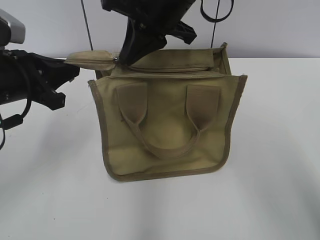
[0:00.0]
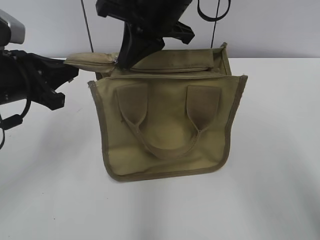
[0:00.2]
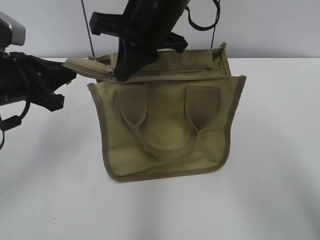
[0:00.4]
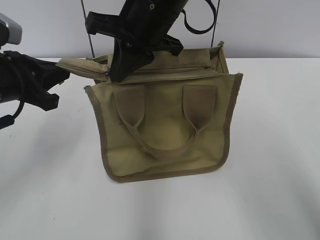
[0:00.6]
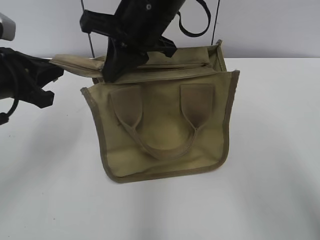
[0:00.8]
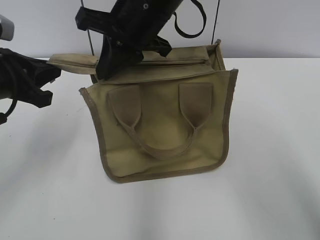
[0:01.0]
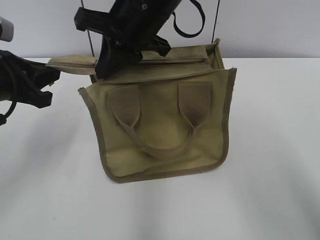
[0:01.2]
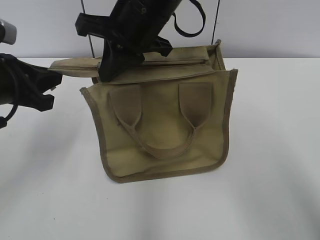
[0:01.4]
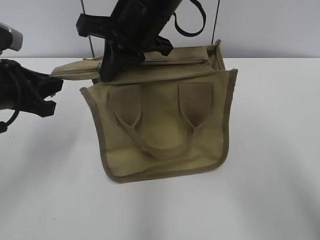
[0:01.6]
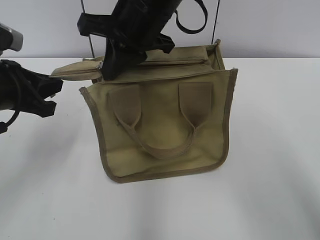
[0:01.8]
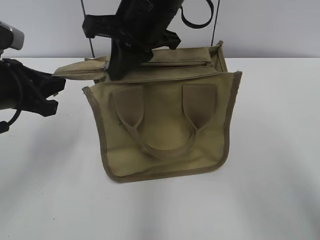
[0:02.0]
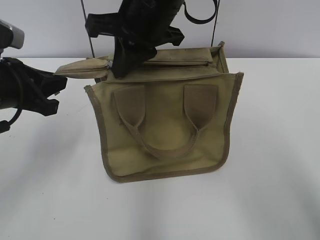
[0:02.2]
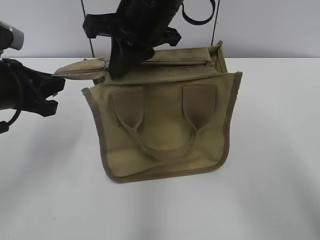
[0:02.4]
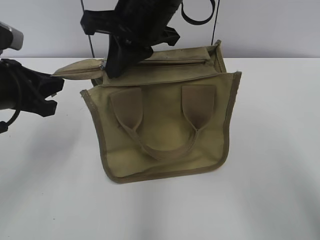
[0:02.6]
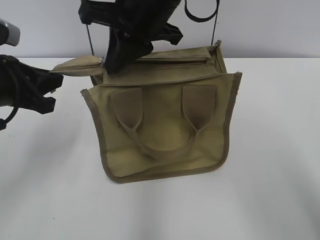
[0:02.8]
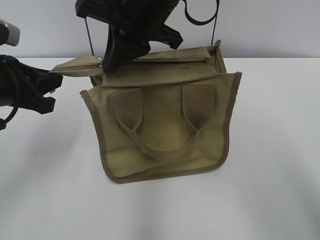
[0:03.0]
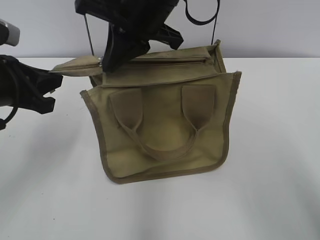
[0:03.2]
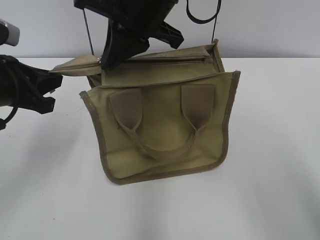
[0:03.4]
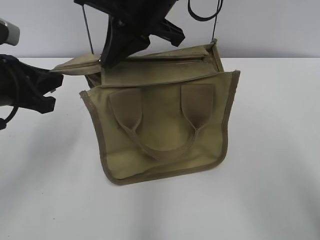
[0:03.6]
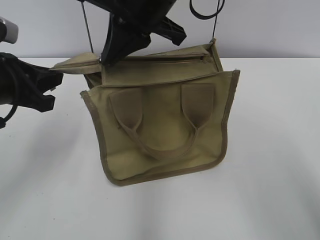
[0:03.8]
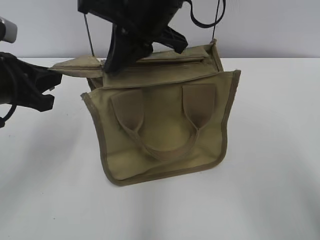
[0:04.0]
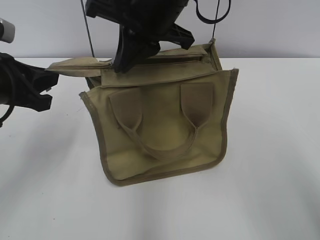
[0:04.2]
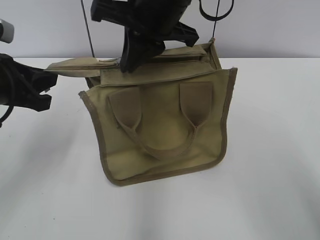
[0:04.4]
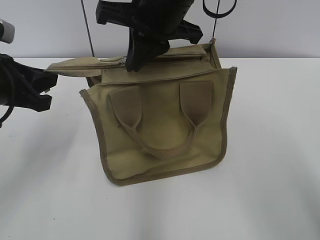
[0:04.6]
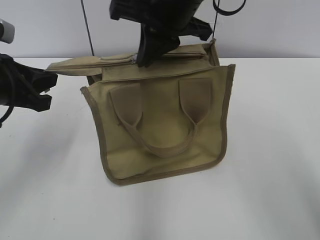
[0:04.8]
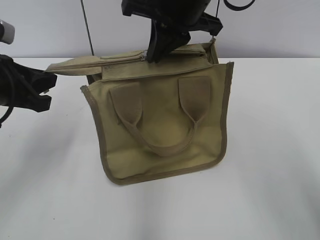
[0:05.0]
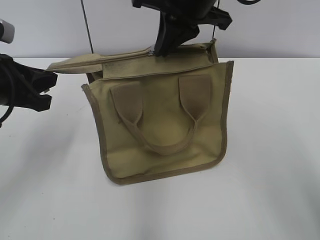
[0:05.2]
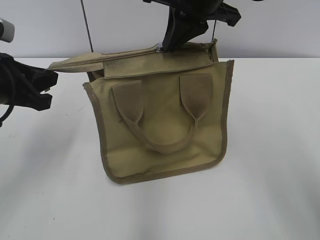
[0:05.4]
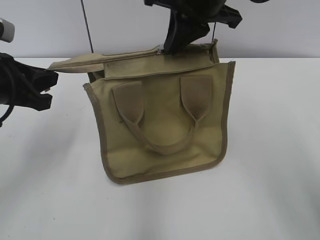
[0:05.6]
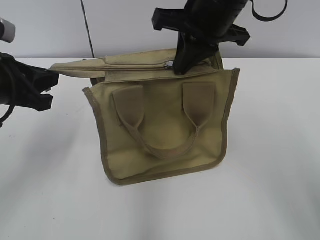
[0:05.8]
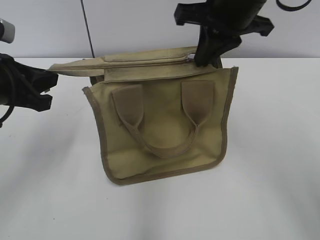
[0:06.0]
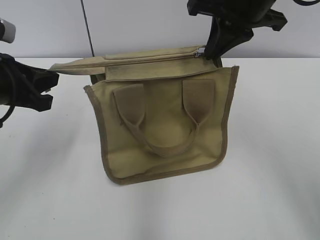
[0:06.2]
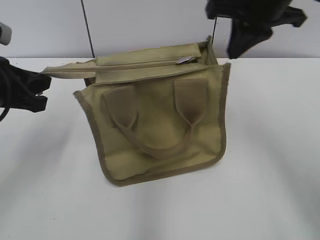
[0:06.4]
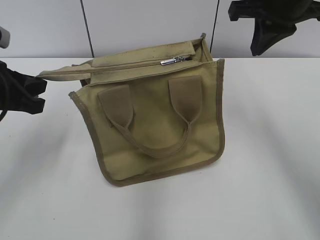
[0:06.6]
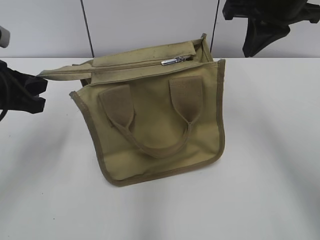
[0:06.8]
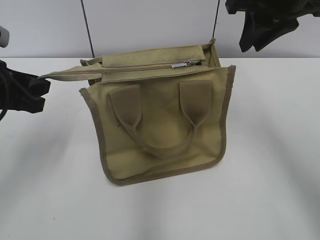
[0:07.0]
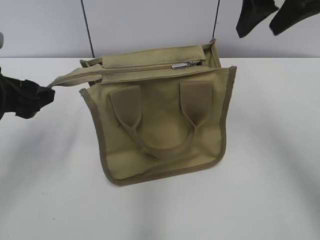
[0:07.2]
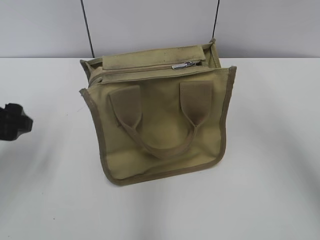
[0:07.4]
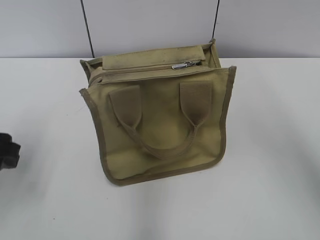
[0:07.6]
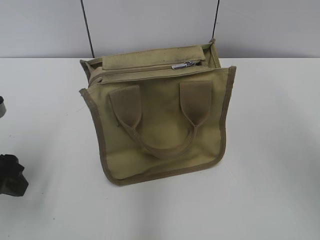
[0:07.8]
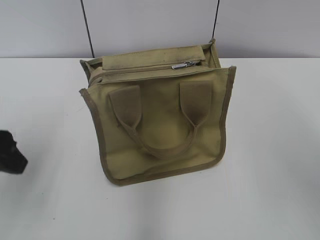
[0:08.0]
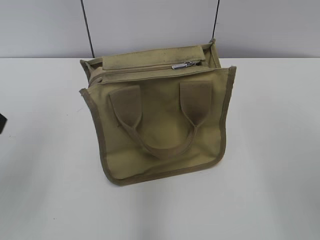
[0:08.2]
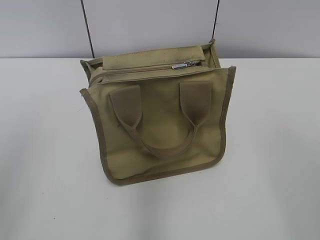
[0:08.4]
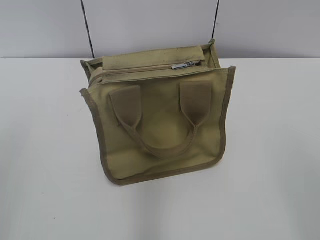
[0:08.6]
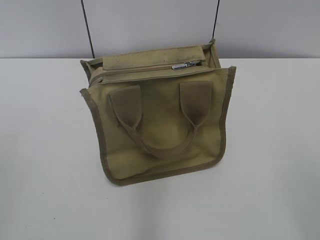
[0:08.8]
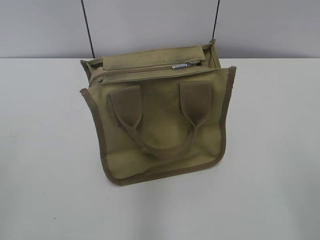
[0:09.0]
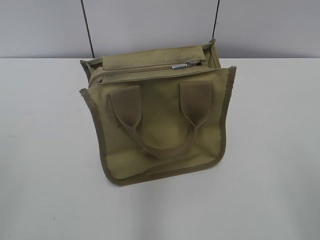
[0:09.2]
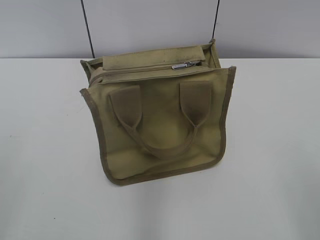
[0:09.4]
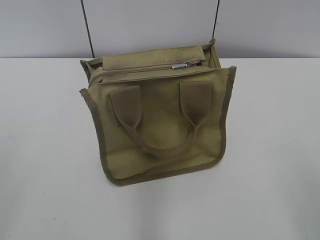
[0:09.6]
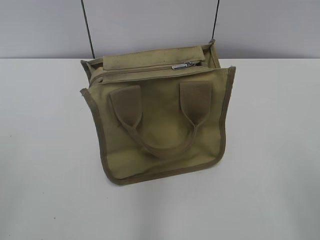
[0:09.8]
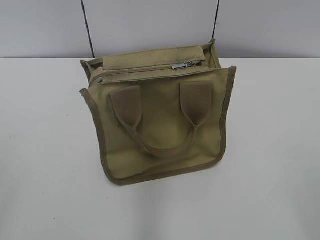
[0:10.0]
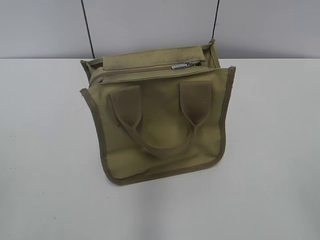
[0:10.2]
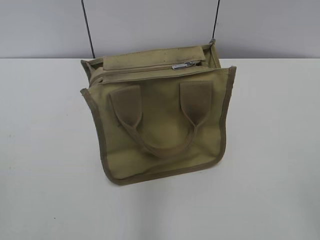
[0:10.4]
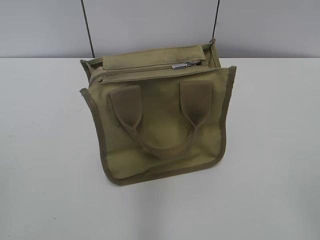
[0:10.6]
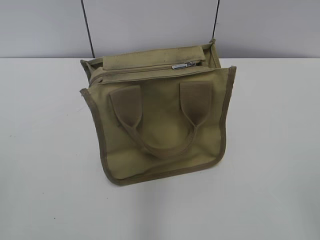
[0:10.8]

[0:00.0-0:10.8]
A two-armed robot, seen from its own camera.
Step, 0:00.0 to 0:06.2: Zip up the bag with your right hand.
Step, 0:06.4 to 0:07.2: Grab the zipper with your left hand.
0:00.0 to 0:04.6: The grippers stay close to where they were, moving slightly.
0:04.6 to 0:06.2: The right gripper is displaced to the right by about 10 cm.
0:06.2 to 0:07.8: The left gripper goes roughly 5 cm backward, and opens. Meanwhile the right gripper heads upward, backward and to the right, covering about 20 cm, and opens its fingers.
0:07.8 to 0:09.2: The left gripper moves backward and upward, roughly 20 cm.

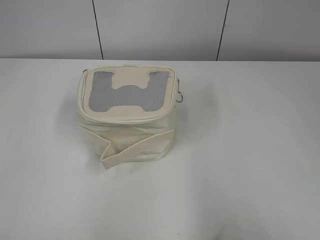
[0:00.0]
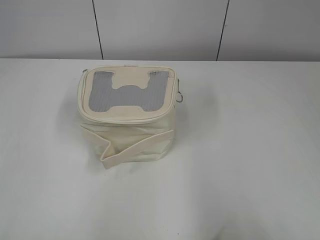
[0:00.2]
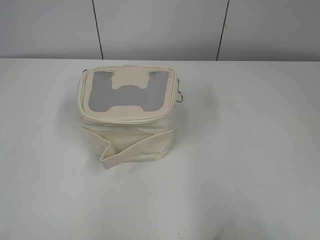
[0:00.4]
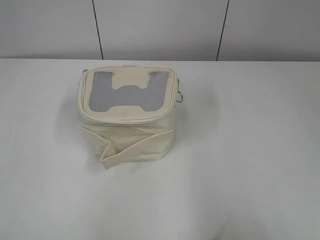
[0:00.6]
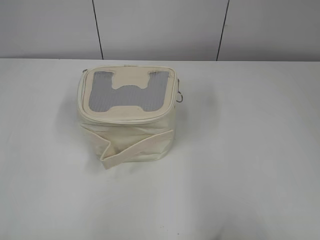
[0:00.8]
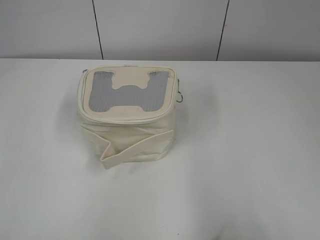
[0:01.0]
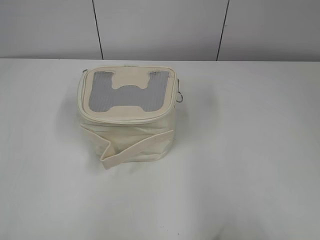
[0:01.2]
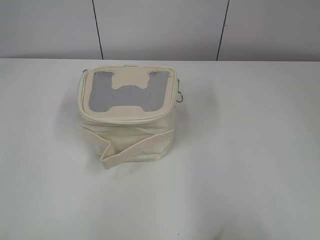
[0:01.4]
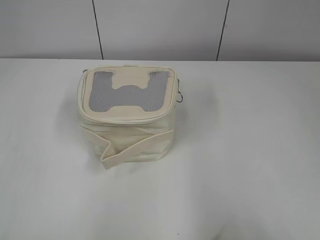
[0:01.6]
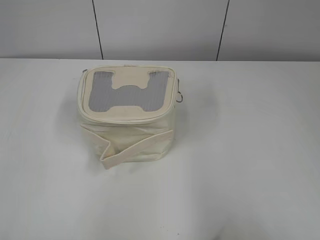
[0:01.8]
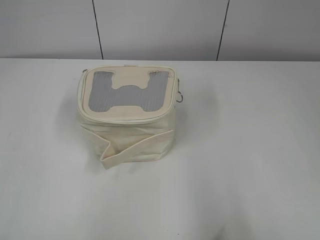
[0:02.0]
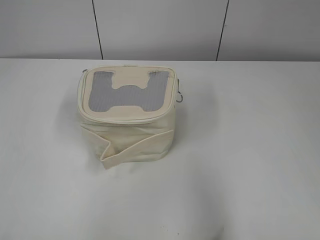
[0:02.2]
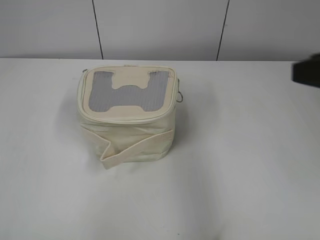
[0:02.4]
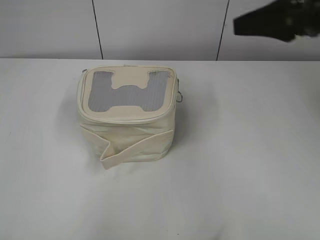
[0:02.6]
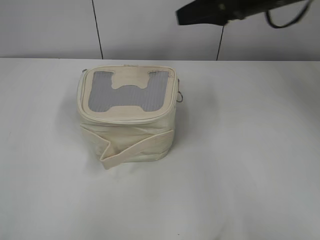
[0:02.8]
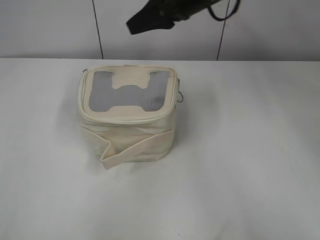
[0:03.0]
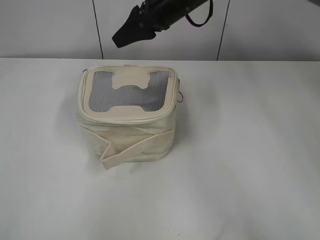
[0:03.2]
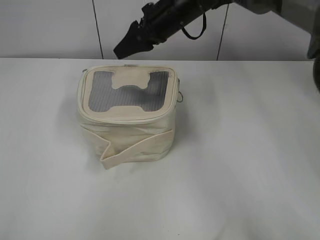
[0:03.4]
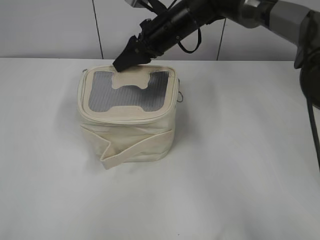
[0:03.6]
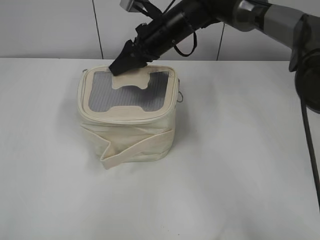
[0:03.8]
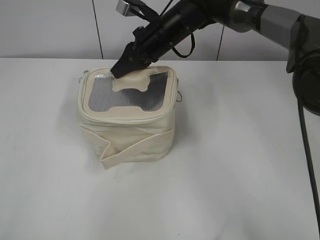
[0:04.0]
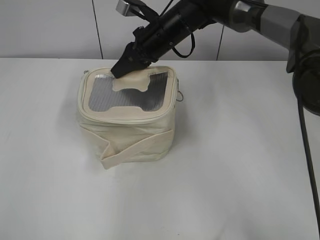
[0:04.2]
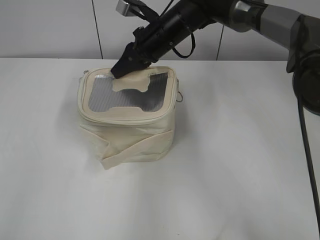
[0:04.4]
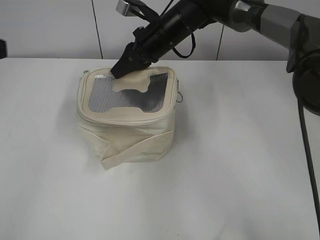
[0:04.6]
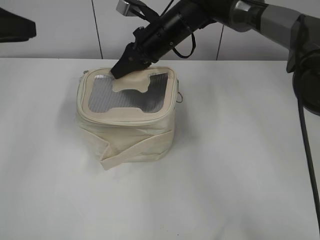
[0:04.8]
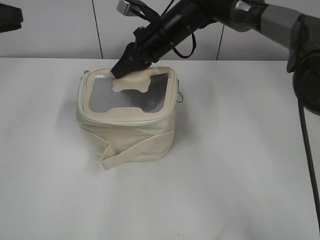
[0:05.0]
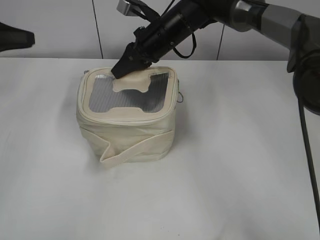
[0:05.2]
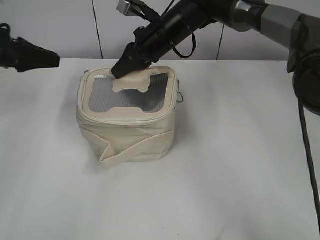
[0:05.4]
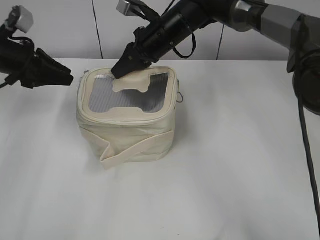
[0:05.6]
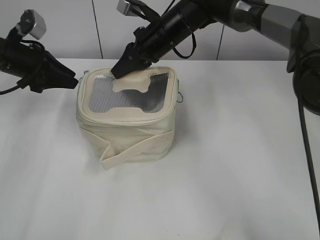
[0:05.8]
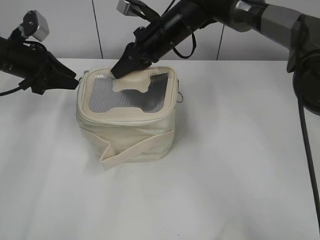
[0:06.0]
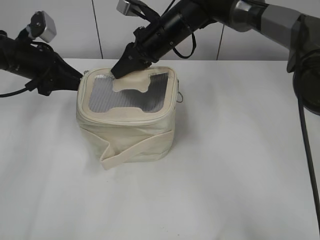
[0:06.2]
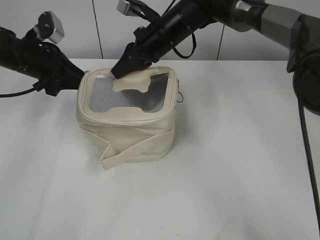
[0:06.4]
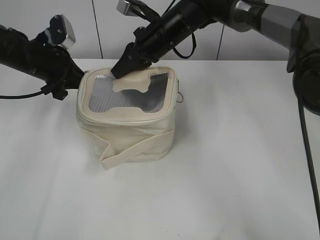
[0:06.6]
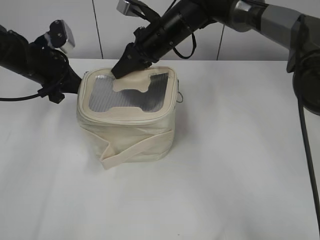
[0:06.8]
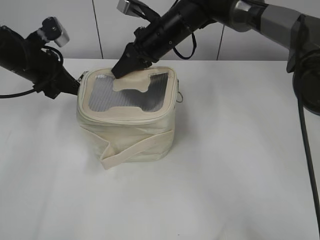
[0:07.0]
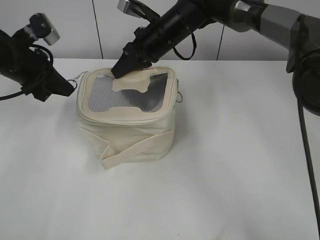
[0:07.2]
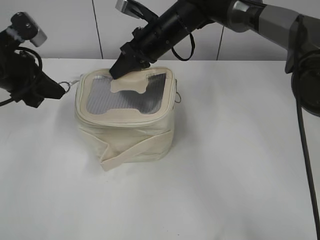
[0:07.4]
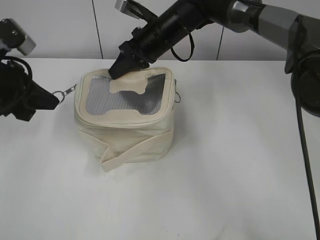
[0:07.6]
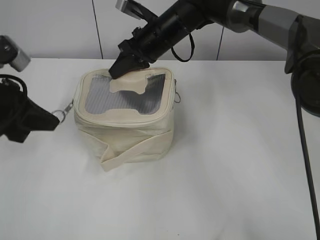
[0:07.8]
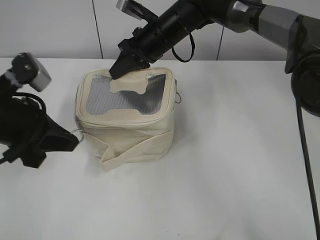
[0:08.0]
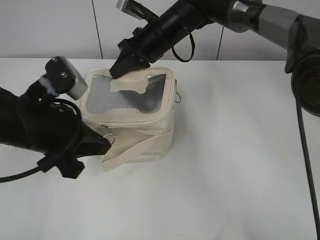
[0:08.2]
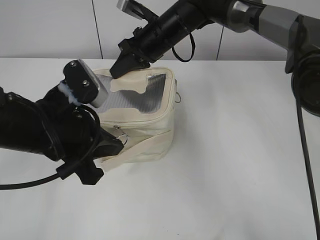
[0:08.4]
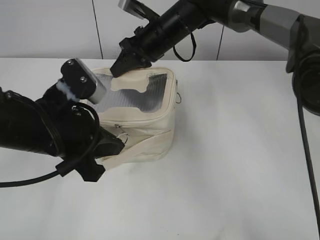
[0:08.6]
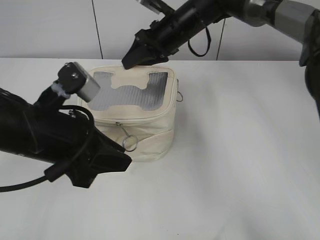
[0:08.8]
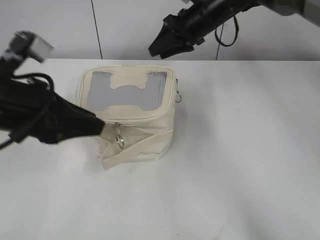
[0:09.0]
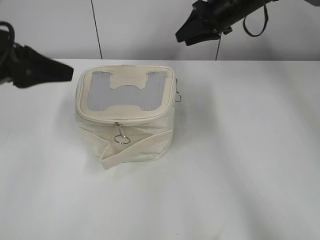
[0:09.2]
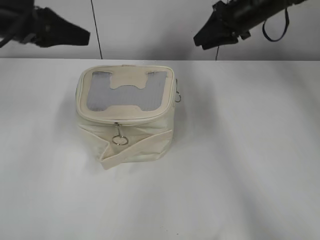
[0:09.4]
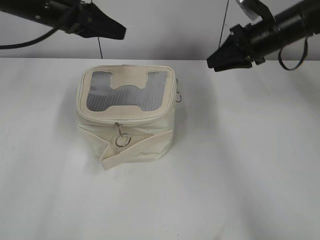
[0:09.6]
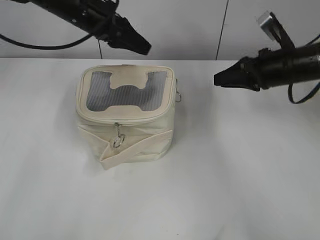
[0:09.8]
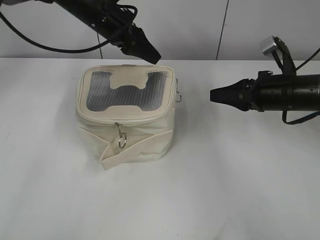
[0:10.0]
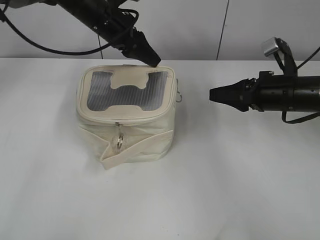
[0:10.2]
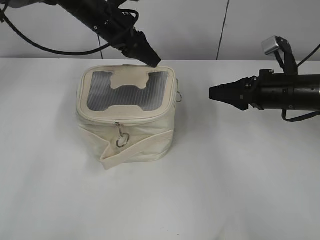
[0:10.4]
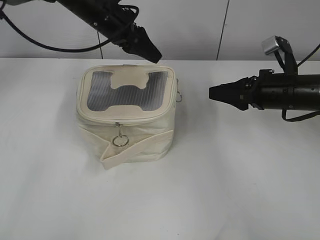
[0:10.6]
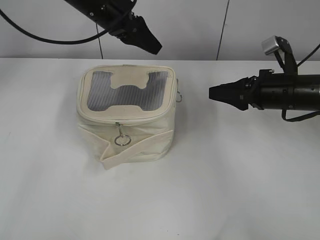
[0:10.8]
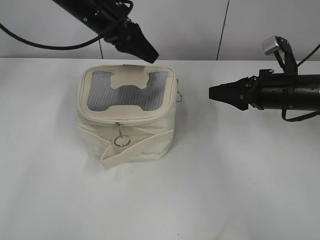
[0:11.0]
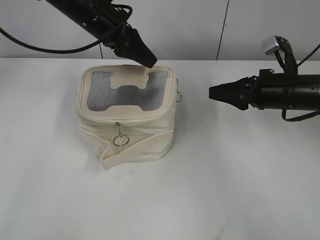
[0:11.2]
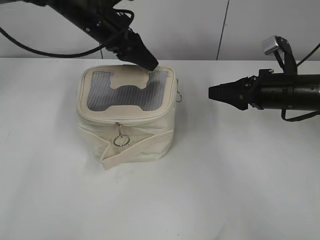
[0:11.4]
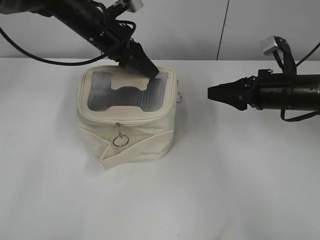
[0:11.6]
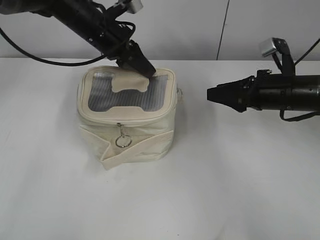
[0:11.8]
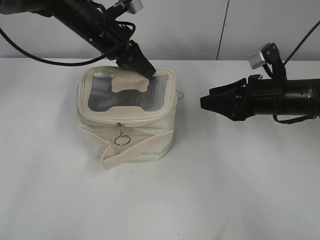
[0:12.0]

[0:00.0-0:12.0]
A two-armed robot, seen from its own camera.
Step, 0:00.0 to 0:08.6: Zip up the bag with your left hand.
0:01.6 to 0:03.0: The right gripper travels forward and to the left by some 50 cm.
0:03.0 to 0:04.4: The left gripper heads forward, covering approximately 10 cm, while the right gripper travels downward and to the left by some 10 cm, and closes its fingers.
0:04.4 to 0:06.0: The left gripper heads forward and downward, covering some 35 cm.
0:06.0 to 0:07.6: The left gripper shifts about 10 cm backward, and closes its fingers.
0:07.6 to 0:09.0: The left gripper heads backward and to the right, covering about 10 cm, and opens its fingers; the right gripper moves to the right, approximately 10 cm, and opens up.
0:09.0 to 0:10.4: The left gripper is displaced forward by about 25 cm, while the right gripper goes roughly 20 cm backward, to the right and downward.
0:10.4 to 0:12.0: The left gripper closes.
